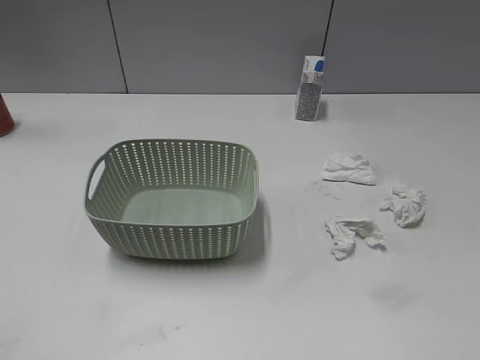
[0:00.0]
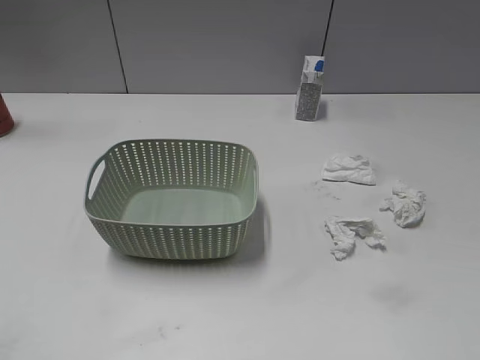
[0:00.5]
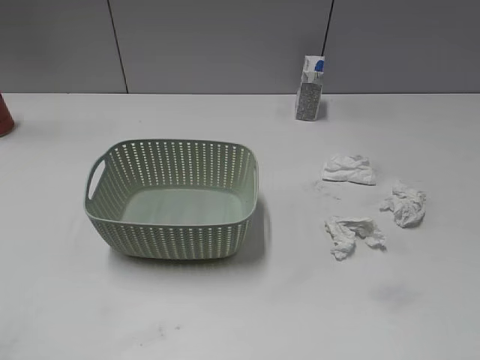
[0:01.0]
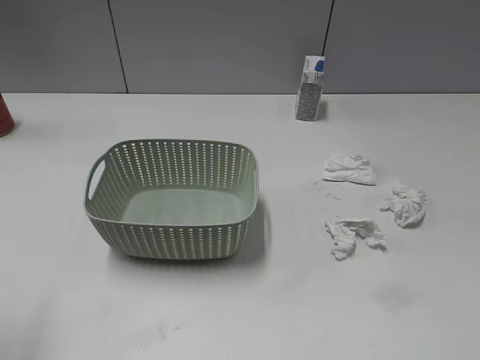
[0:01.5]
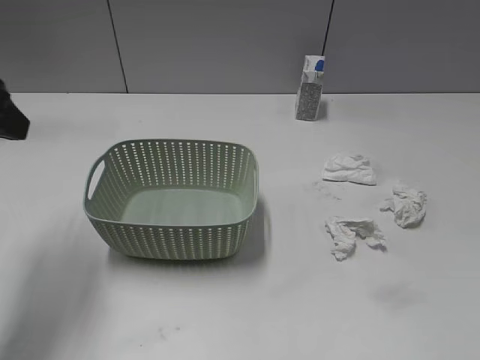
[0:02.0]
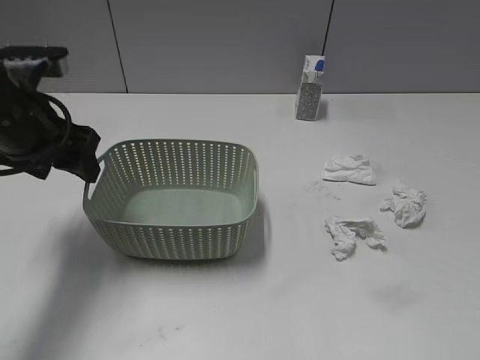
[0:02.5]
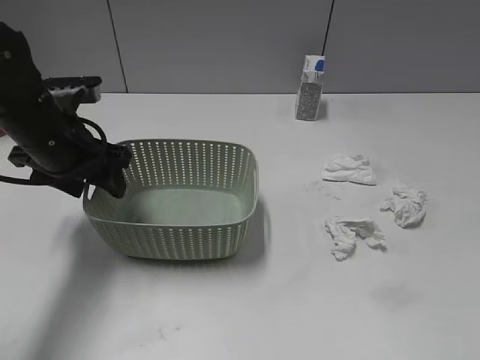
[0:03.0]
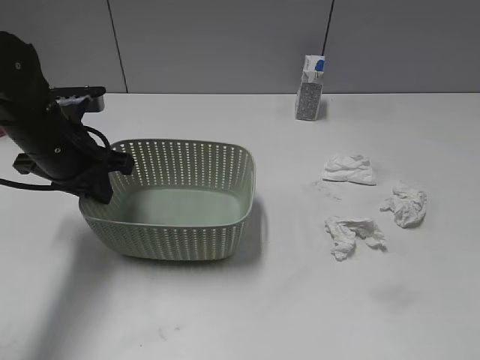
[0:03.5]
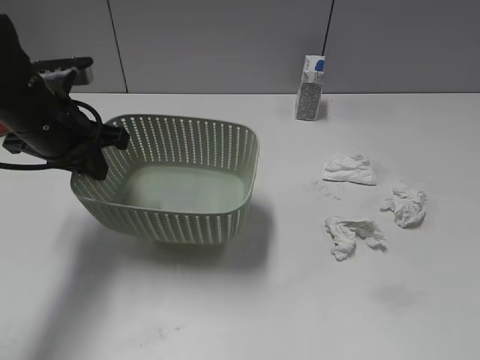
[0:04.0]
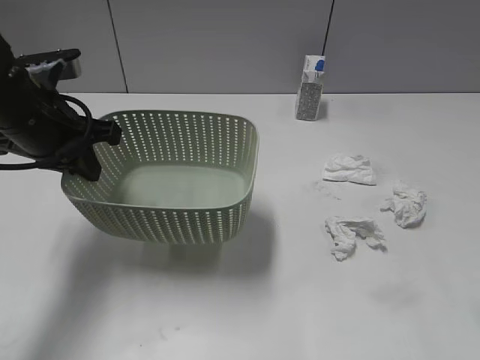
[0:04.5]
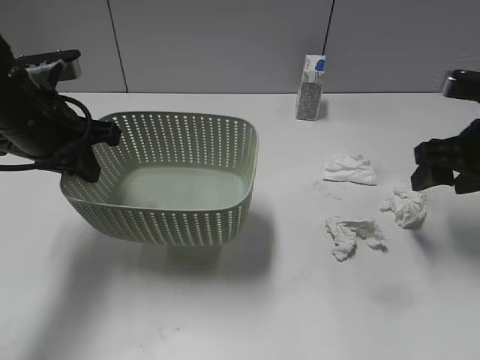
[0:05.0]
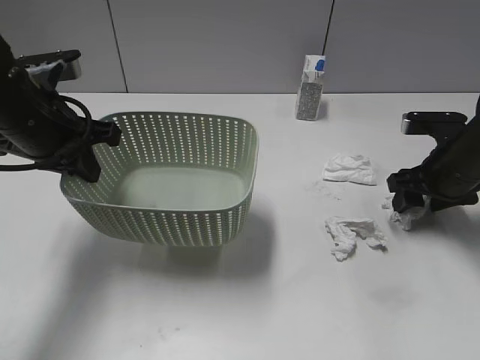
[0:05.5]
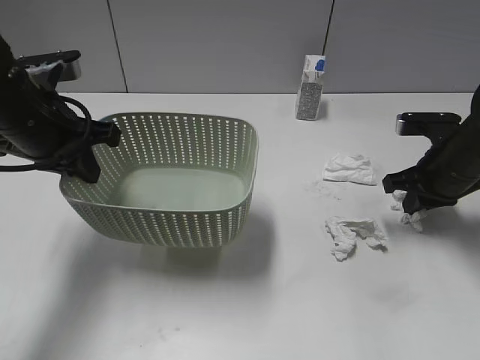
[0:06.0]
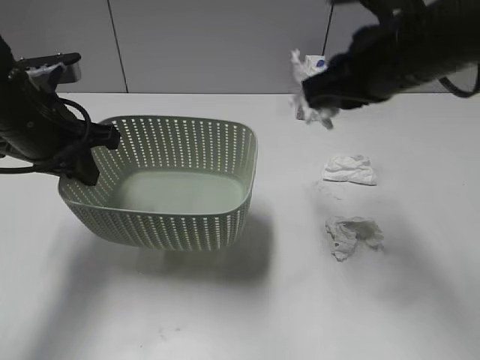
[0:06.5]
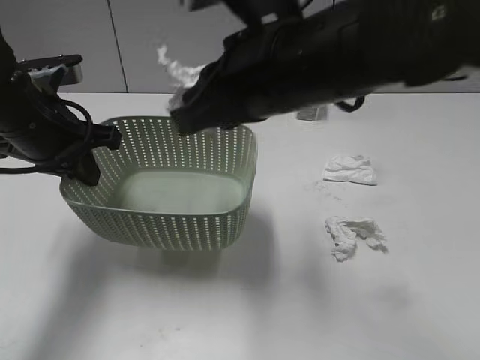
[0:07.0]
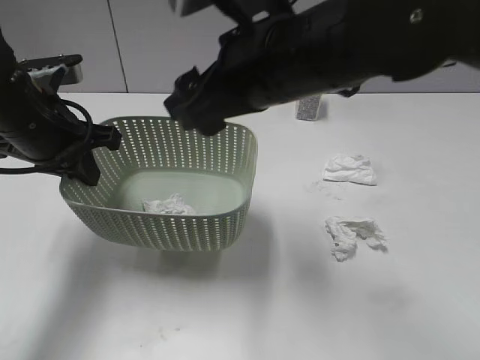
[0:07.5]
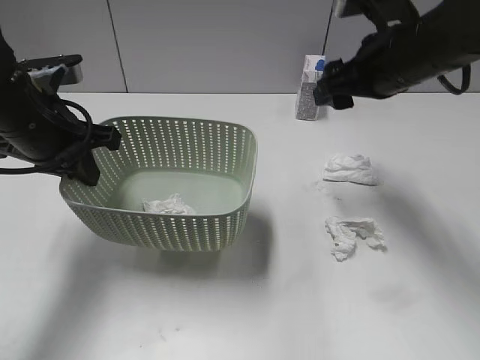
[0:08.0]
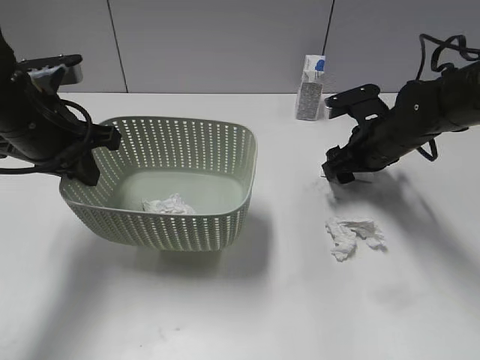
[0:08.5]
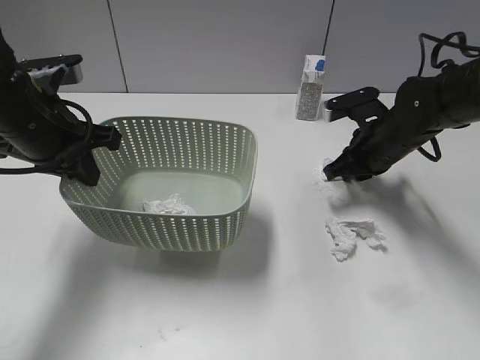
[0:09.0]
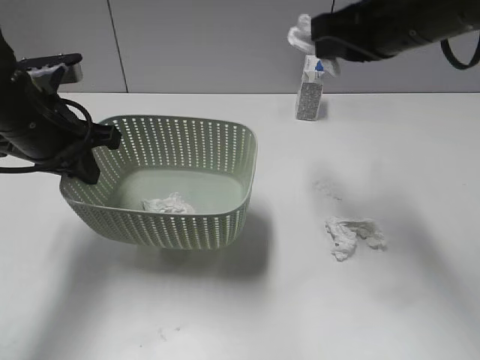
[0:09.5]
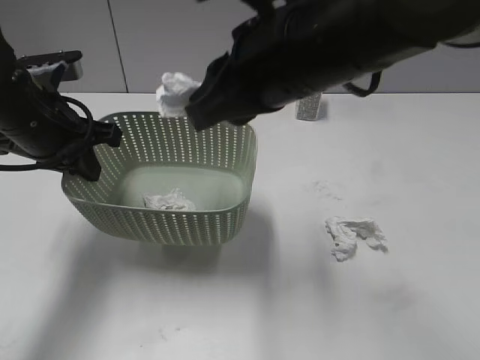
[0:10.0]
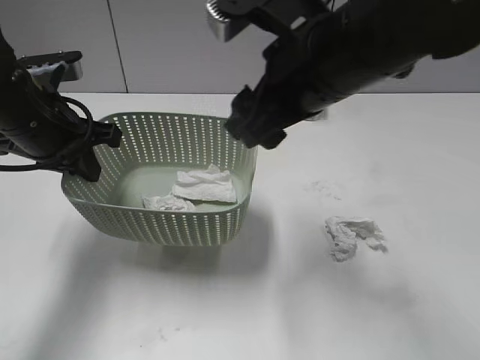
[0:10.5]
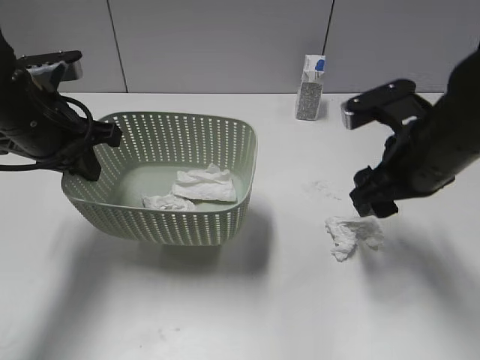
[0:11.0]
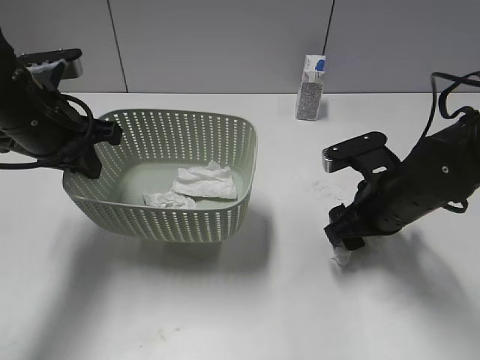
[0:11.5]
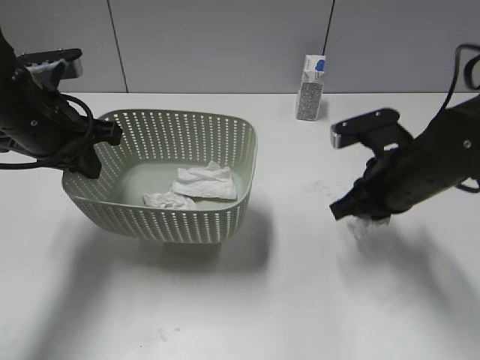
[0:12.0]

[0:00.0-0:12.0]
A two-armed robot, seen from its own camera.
Step, 0:02.0 to 0:03.5: Grasp the basket with left gripper.
Step, 0:04.5 to 0:06.0: Grasp the waste paper with right gripper.
Step, 0:06.5 to 0:07.0: Place the waste paper in the basket with right gripper.
Step, 0:07.5 to 0:09.0: Grasp the waste paper with right gripper.
Step, 0:09.5 to 0:10.0: Place the waste paper in the basket with right gripper.
0:02.0 to 0:04.0: The left gripper is displaced downward, forward and to the right by approximately 15 cm, and closes.
0:04.0 to 0:06.0: The right gripper travels forward and downward by roughly 35 cm, and closes its fingers.
0:06.0 to 0:08.0: The right gripper moves upward and to the left, roughly 15 cm, and opens its fingers.
0:08.0 to 0:10.0: The right gripper moves to the left and backward, approximately 15 cm, reaches approximately 15 cm downward, then returns, and closes up.
0:10.0 to 0:12.0: The right gripper shifts approximately 20 cm downward and to the right, and opens, then closes once more.

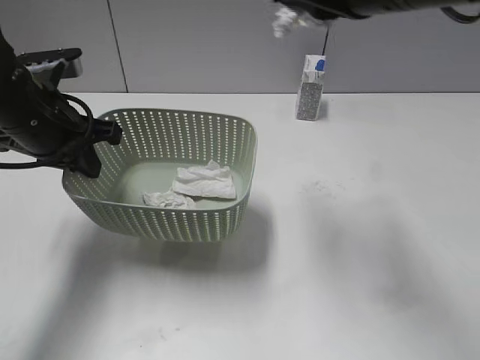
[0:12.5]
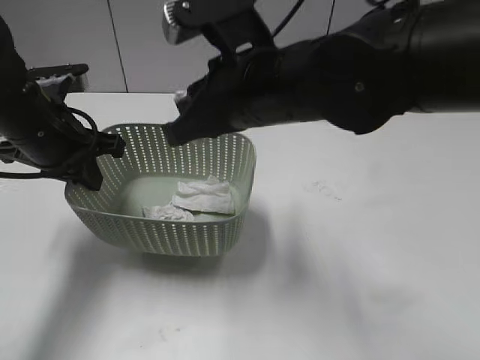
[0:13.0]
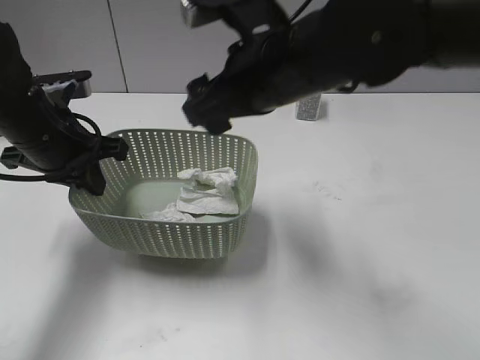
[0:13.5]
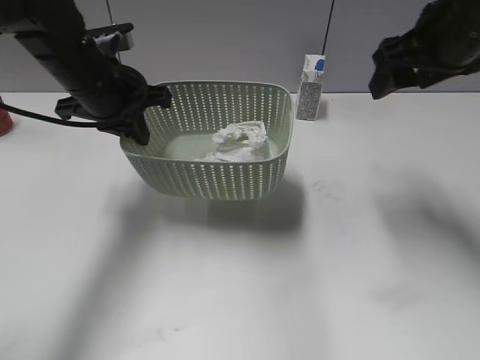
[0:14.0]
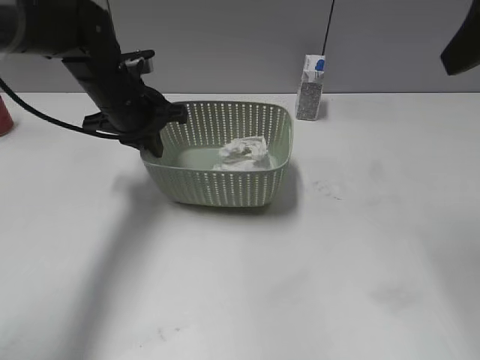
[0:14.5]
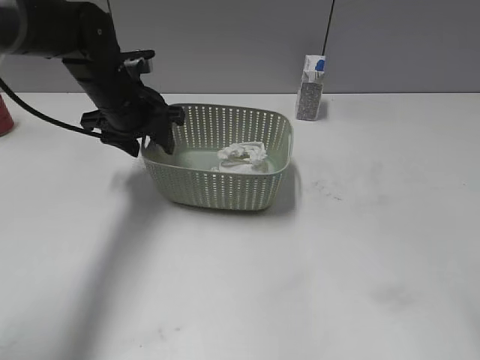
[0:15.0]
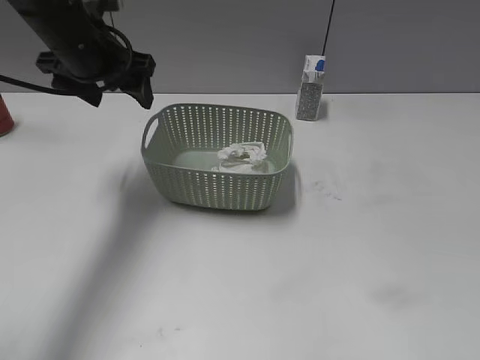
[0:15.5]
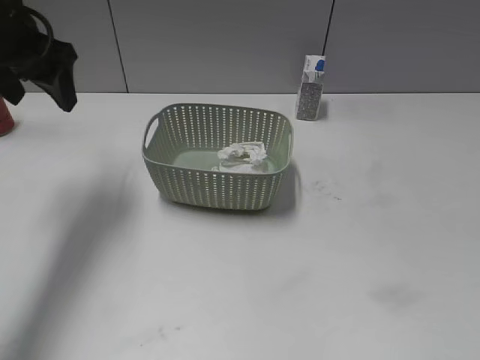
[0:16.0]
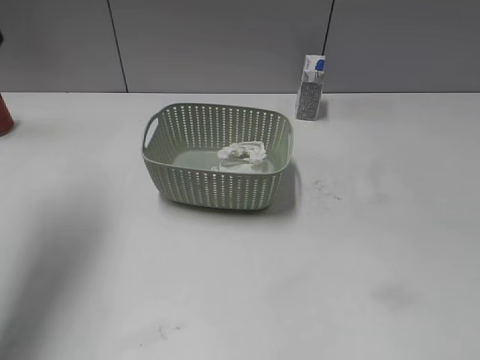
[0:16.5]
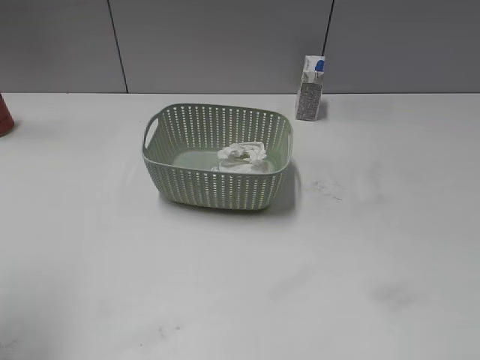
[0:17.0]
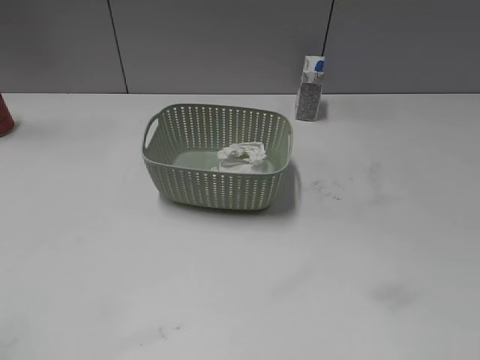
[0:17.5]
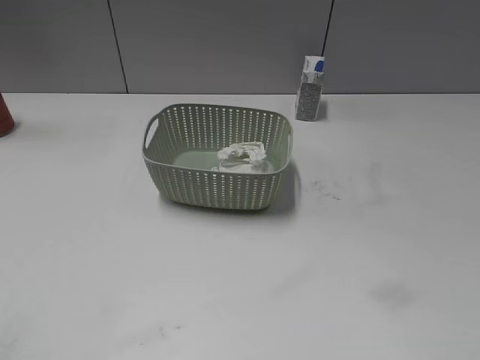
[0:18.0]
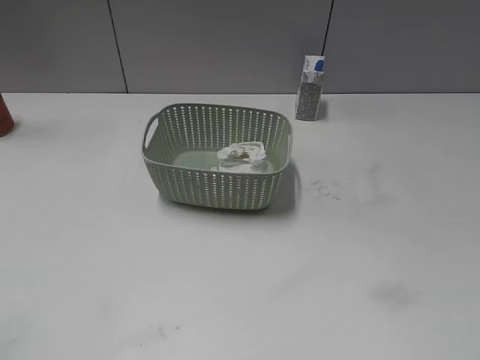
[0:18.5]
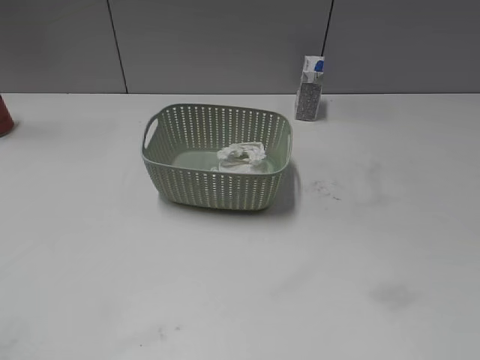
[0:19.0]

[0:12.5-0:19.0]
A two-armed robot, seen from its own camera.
Step, 0:13.5 to 0:15.0: Place the basket on the table with left gripper.
0:12.5 to 0:14.5: The right gripper travels to the right by about 15 cm, and opens its fingers. Meanwhile the left gripper moves forward and to the right, about 10 cm.
0:14.5 to 0:17.0: The right gripper is displaced backward and downward by some 25 cm; the left gripper moves backward, upward and to the left, about 35 cm, and opens up.
0:17.0 to 0:19.0: The left gripper goes some 20 cm backward and downward.

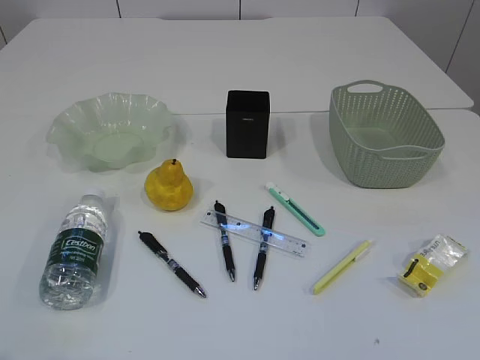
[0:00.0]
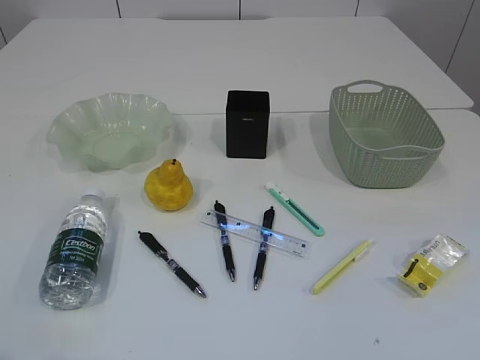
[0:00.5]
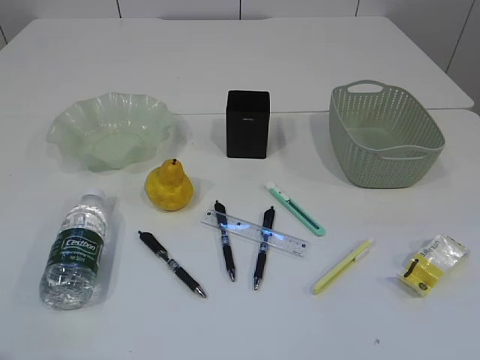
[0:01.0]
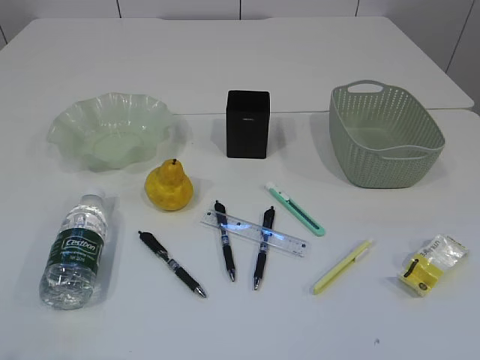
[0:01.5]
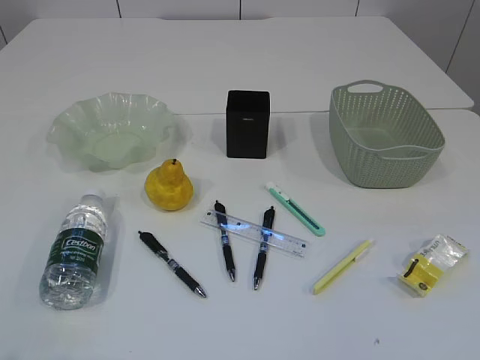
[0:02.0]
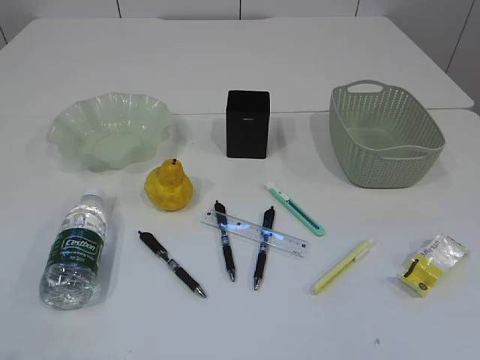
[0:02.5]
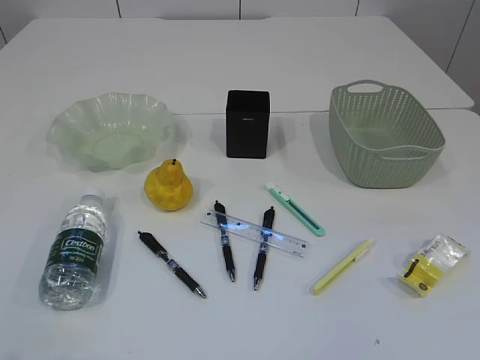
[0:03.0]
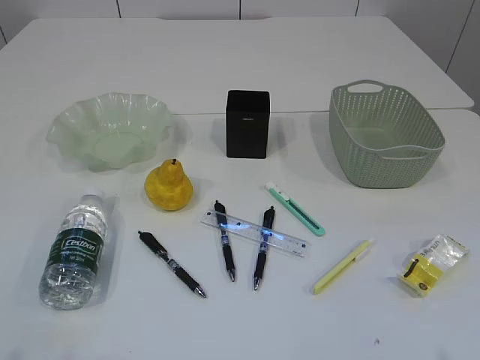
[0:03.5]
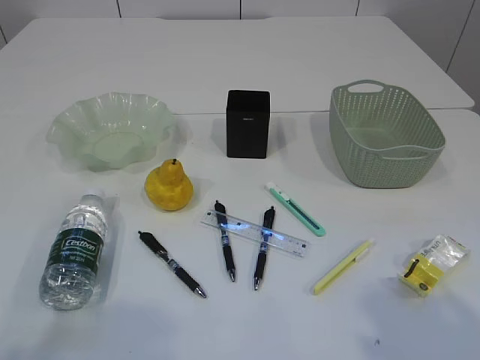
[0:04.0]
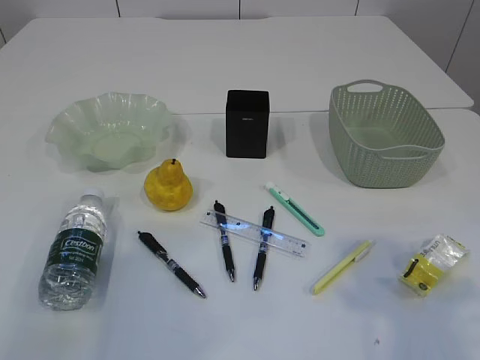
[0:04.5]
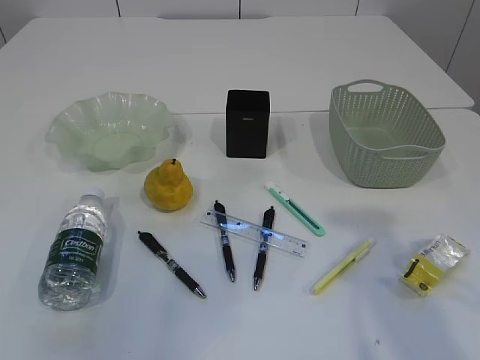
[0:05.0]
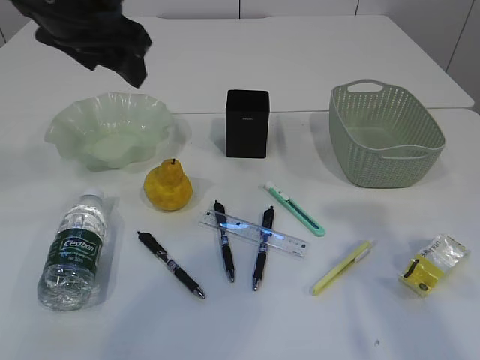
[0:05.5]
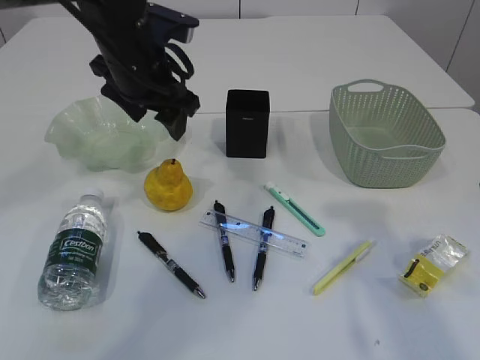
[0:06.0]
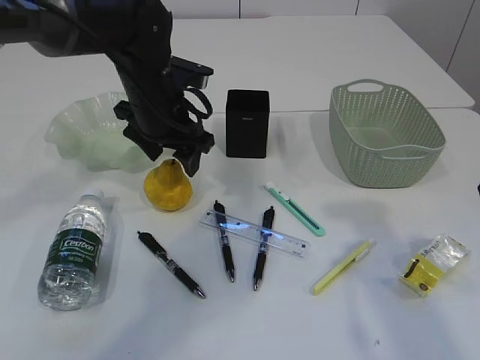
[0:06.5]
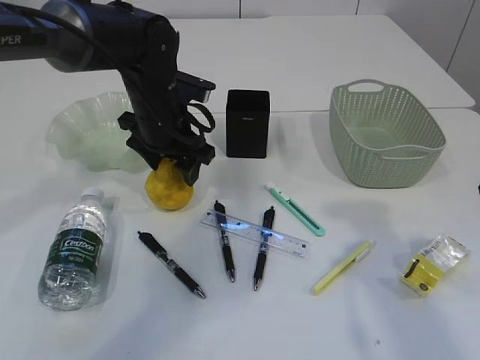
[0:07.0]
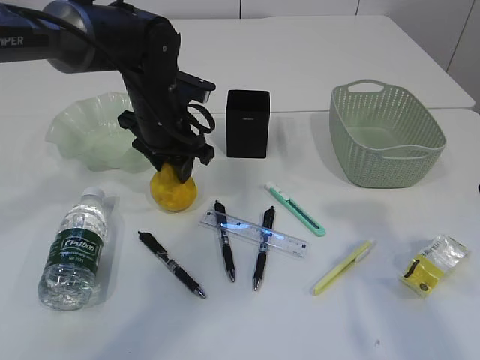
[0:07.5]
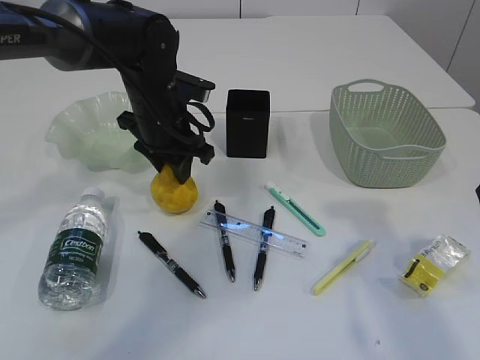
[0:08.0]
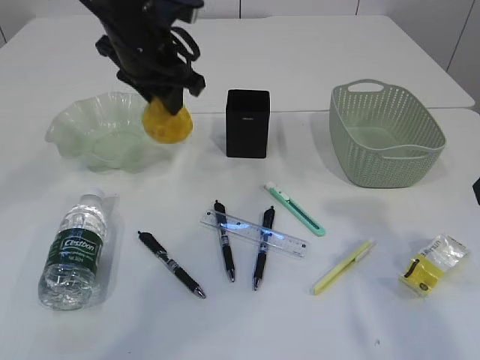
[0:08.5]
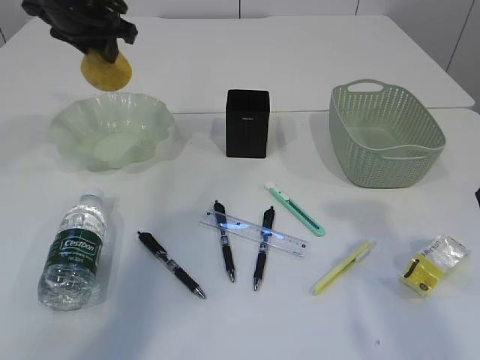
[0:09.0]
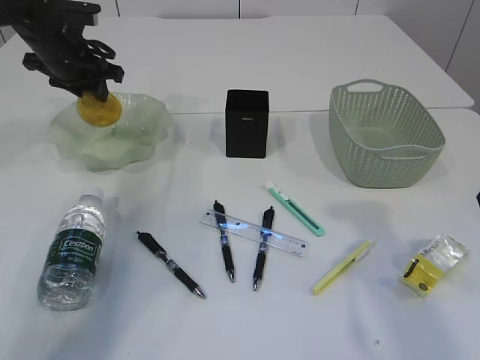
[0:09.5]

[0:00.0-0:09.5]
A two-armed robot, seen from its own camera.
0:02.0 to 0:04.0: The left gripper moves some 5 cm.
0:04.0 to 0:05.5: The right gripper shifts some 15 cm forward. Meanwhile the left gripper is displaced forward and to the right by roughly 35 cm.
0:05.5 to 0:07.5: The left gripper is displaced downward and forward by about 20 cm.
0:07.5 to 0:09.5: The left gripper travels to the left and forward by some 20 cm.
